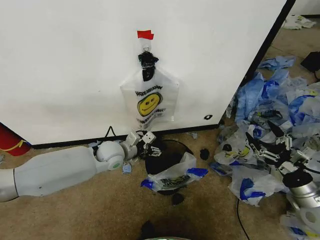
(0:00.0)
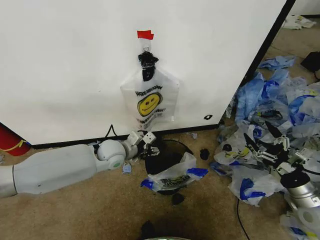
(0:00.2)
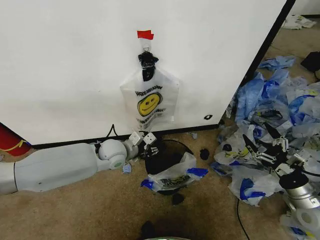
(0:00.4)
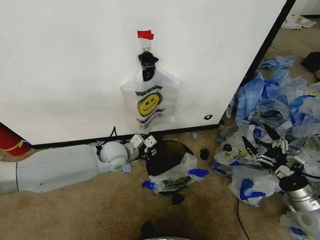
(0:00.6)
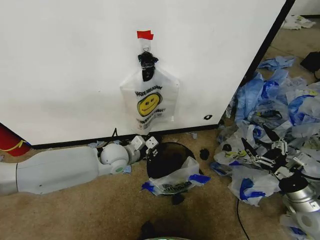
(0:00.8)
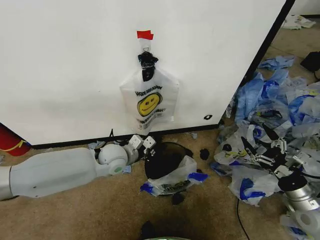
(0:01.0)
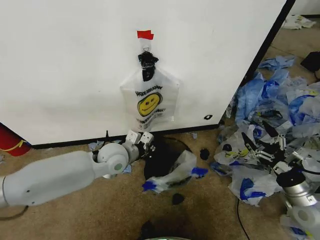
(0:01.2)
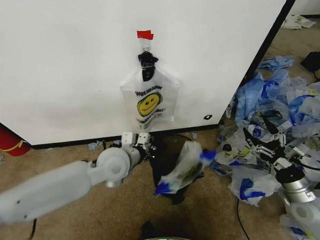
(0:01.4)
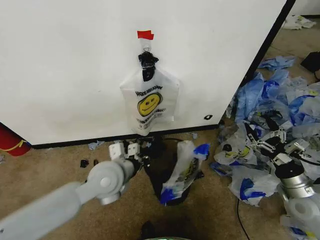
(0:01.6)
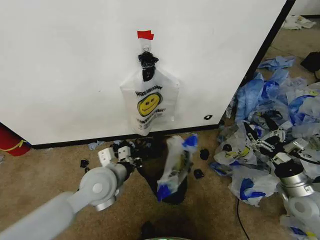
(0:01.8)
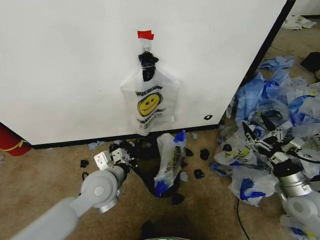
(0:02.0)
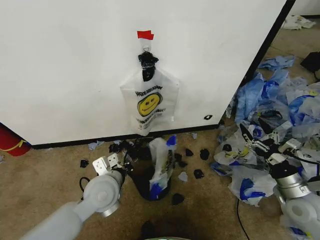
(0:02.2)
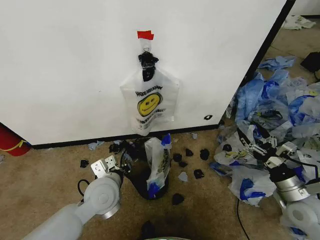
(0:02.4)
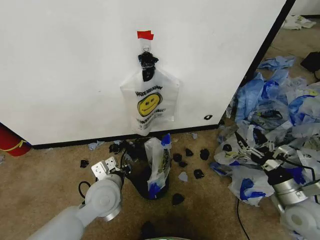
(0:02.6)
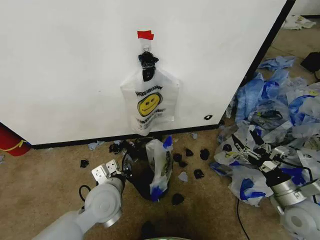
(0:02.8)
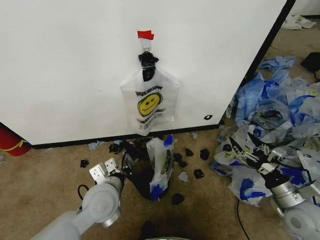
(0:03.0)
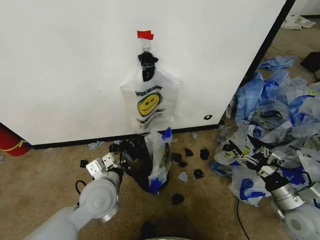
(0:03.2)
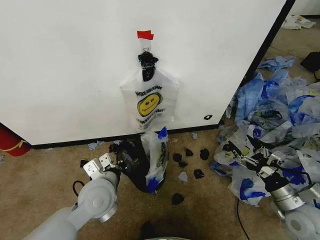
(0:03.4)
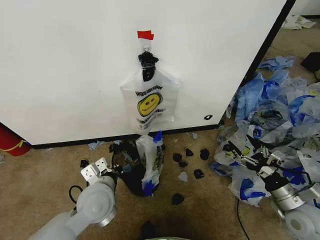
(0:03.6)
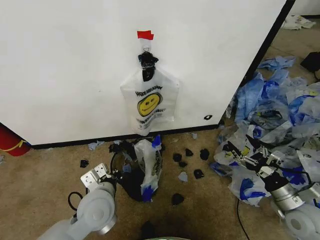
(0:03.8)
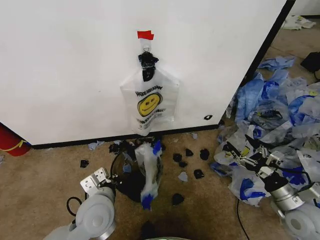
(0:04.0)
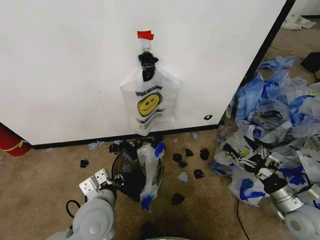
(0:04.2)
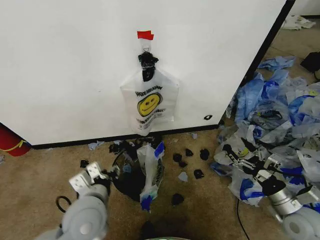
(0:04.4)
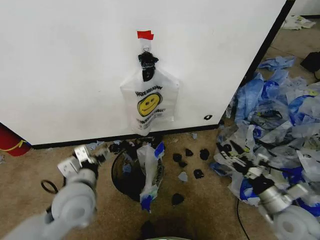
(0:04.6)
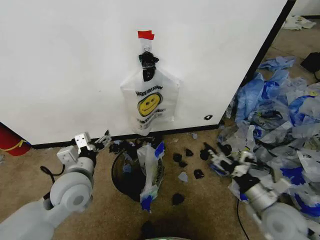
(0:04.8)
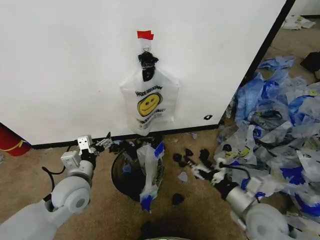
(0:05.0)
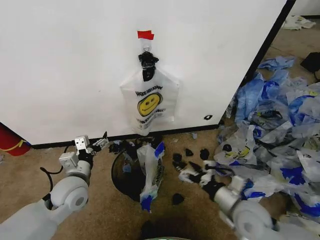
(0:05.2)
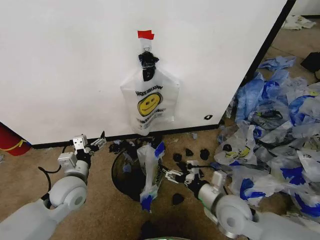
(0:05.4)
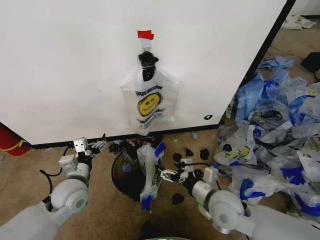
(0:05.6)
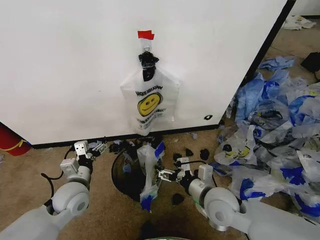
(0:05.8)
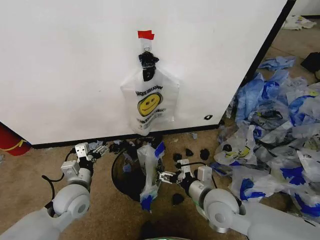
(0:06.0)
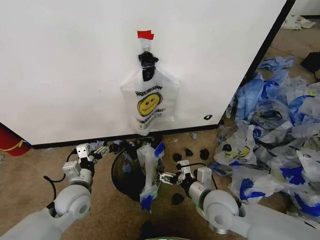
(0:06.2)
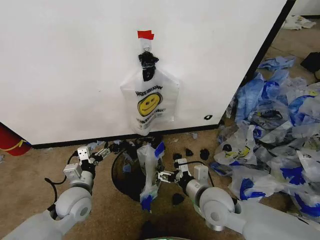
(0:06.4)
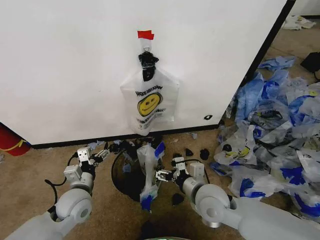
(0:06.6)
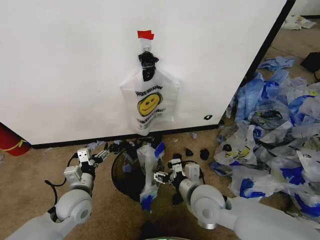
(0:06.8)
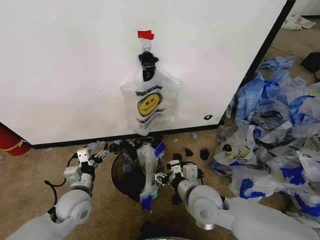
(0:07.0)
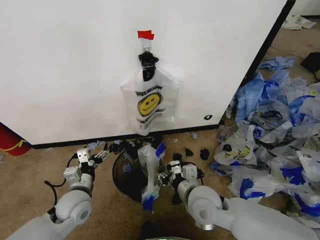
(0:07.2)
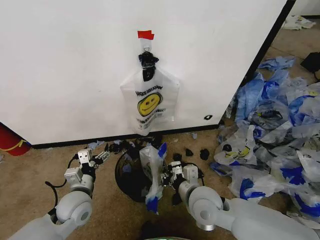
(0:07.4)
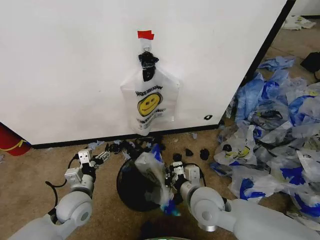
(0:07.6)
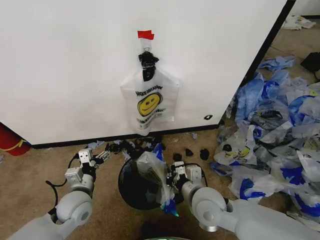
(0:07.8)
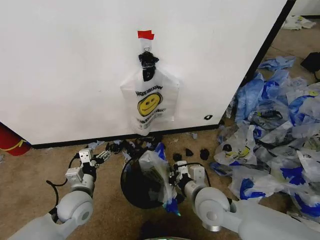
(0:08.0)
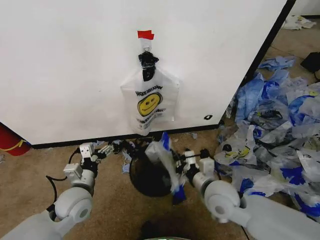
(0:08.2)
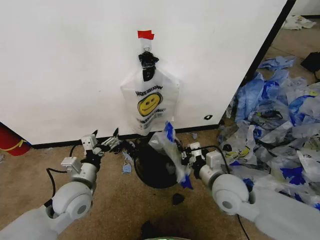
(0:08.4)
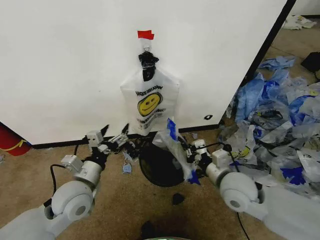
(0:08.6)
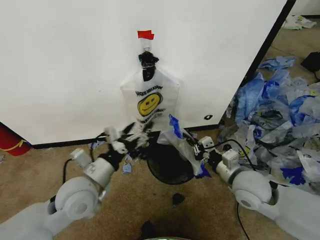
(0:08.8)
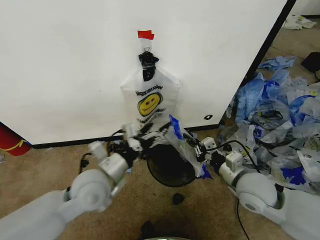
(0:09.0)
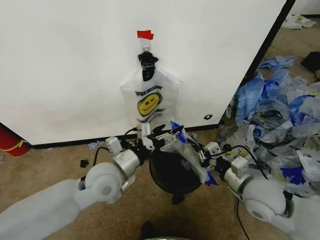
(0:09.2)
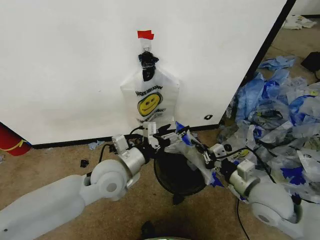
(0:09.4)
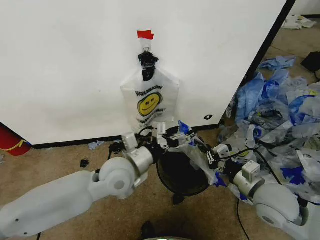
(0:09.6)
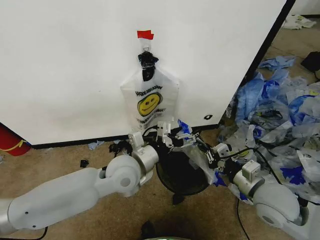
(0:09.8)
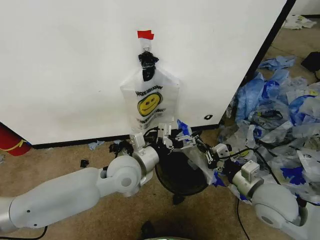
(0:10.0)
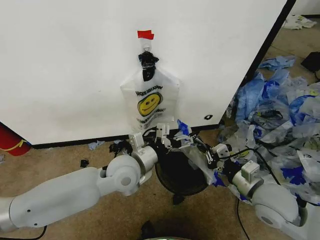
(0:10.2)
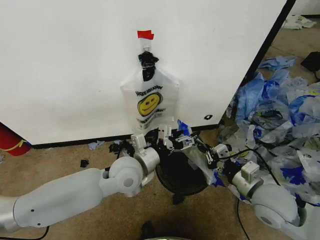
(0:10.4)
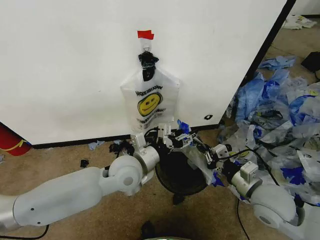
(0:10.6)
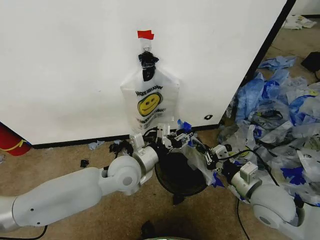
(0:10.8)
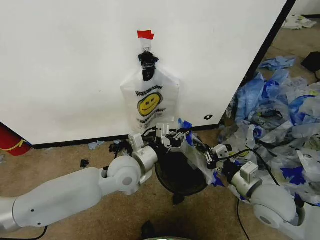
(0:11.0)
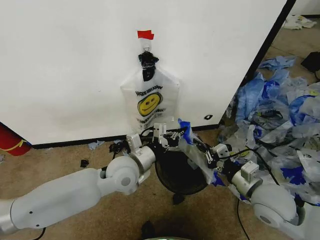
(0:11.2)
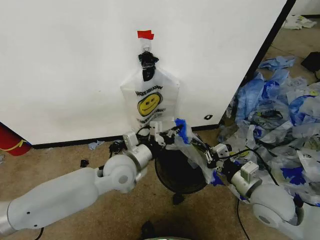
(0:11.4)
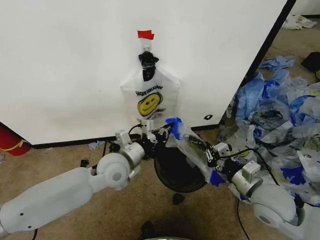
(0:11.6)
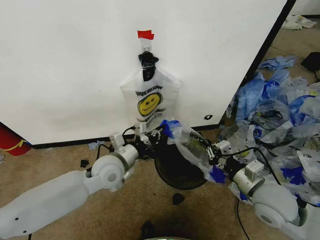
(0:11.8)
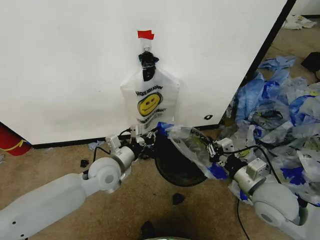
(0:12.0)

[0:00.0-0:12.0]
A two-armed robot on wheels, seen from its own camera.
Task of the whole recording: Pick up the garbage bag from the wall and place it over the trash bin.
0:00.0 to 0:01.6: The left gripper moves backward and upward, some 10 cm, and closes up.
0:01.6 to 0:03.0: The left gripper moves backward and downward, roughly 10 cm.
0:03.0 to 0:04.4: The left gripper ends up roughly 5 cm from where it was, and opens.
0:04.4 to 0:06.0: The left gripper is displaced to the left, downward and forward by roughly 15 cm, and opens its fingers. Meanwhile the right gripper is displaced to the left by about 25 cm.
0:06.0 to 0:07.6: The right gripper closes its fingers.
0:07.6 to 0:09.0: The left gripper goes some 15 cm upward and to the right. The right gripper shifts about 15 cm to the right.
0:09.0 to 0:10.4: The left gripper is displaced to the right by some 10 cm.
0:10.4 to 0:12.0: The left gripper travels to the left by approximately 5 cm, and closes up.

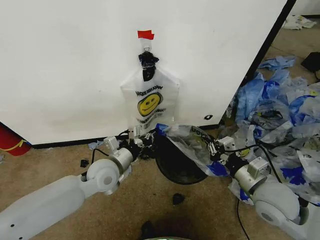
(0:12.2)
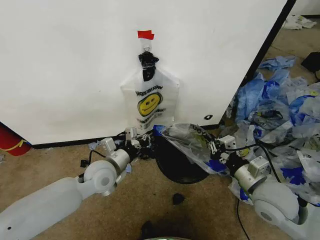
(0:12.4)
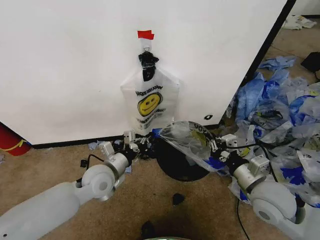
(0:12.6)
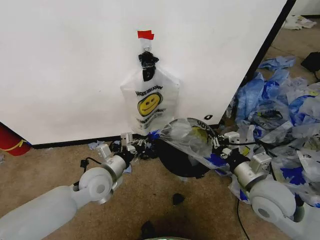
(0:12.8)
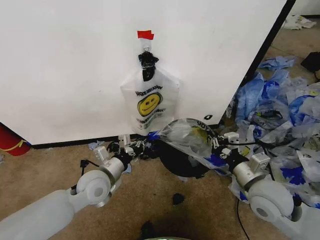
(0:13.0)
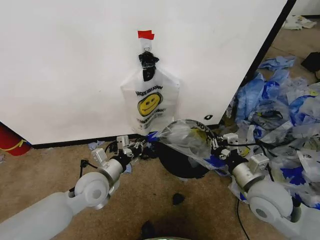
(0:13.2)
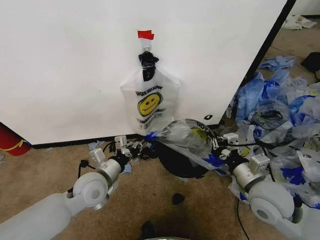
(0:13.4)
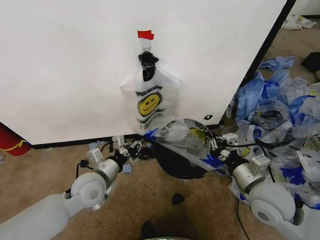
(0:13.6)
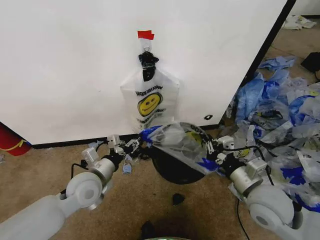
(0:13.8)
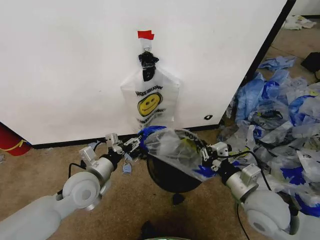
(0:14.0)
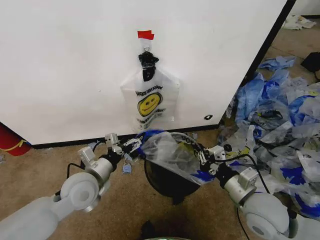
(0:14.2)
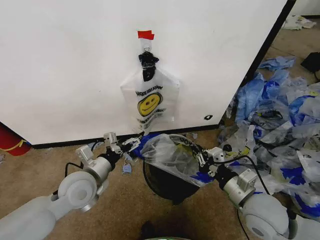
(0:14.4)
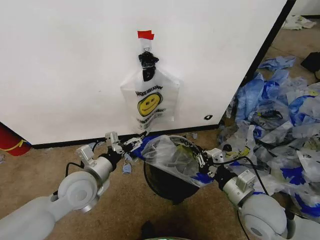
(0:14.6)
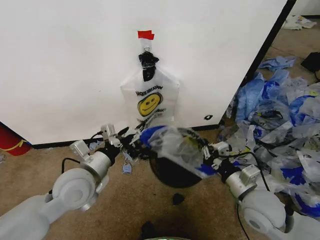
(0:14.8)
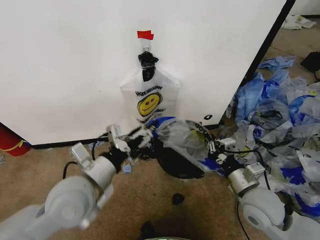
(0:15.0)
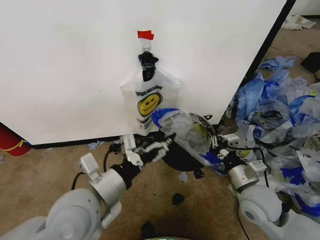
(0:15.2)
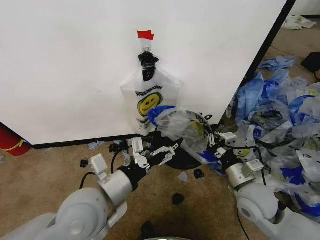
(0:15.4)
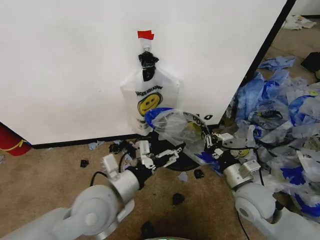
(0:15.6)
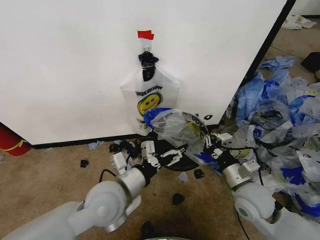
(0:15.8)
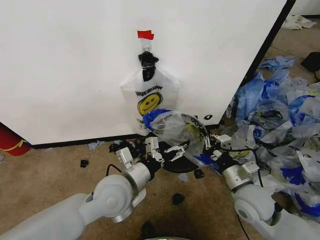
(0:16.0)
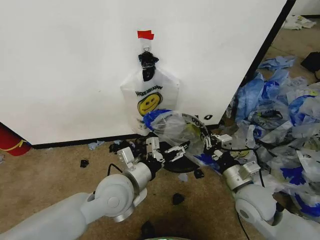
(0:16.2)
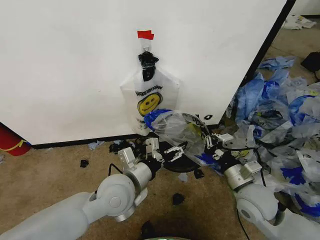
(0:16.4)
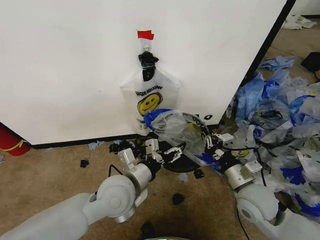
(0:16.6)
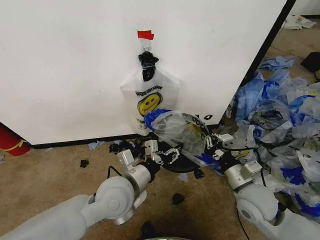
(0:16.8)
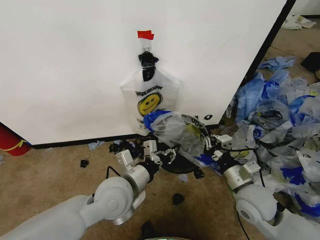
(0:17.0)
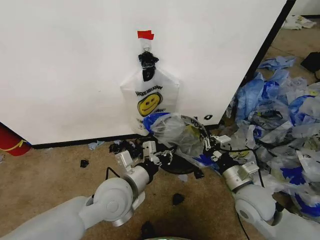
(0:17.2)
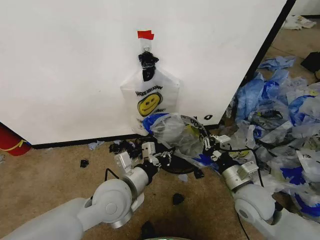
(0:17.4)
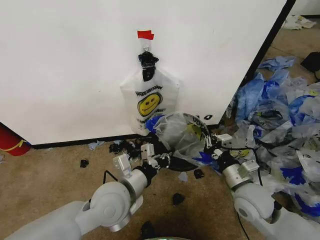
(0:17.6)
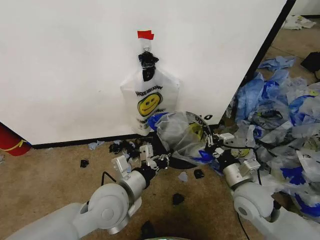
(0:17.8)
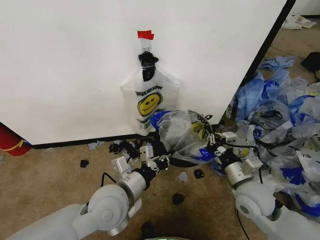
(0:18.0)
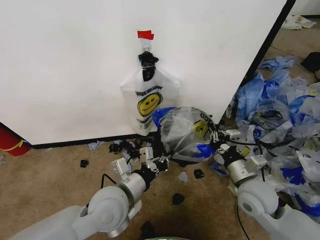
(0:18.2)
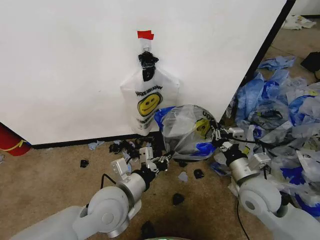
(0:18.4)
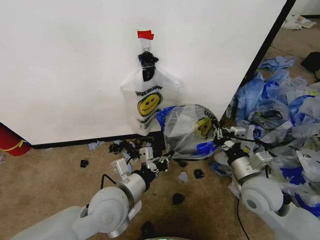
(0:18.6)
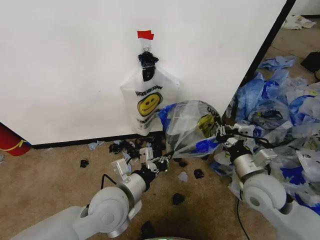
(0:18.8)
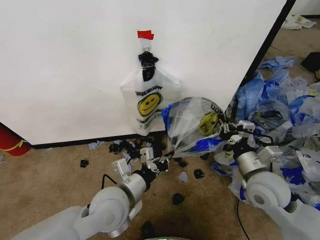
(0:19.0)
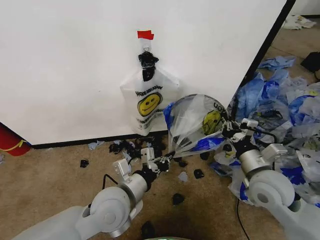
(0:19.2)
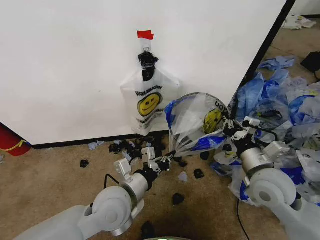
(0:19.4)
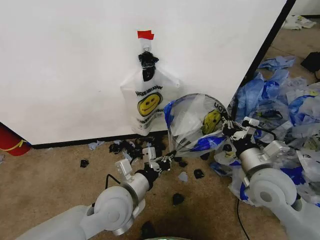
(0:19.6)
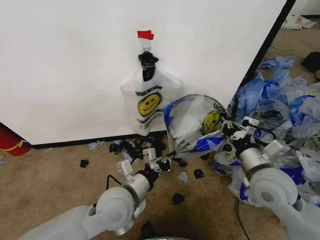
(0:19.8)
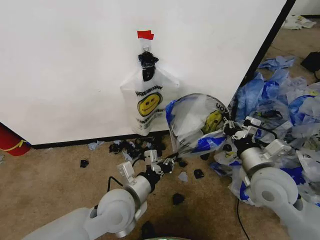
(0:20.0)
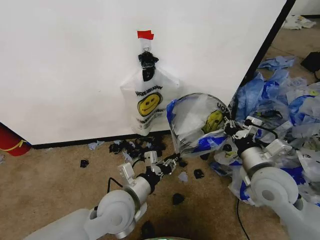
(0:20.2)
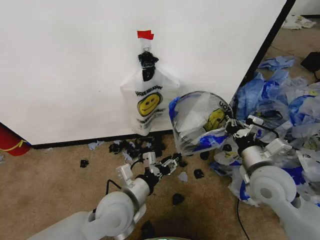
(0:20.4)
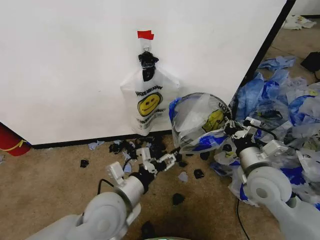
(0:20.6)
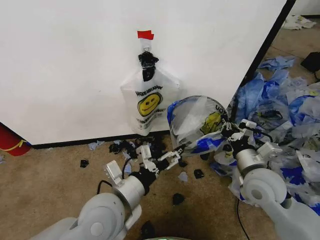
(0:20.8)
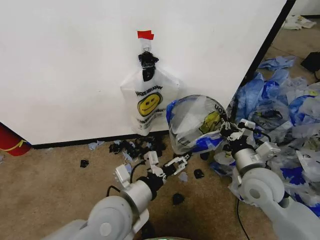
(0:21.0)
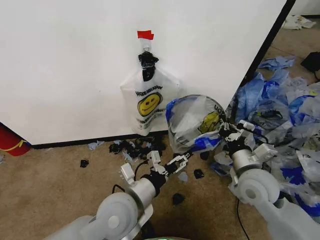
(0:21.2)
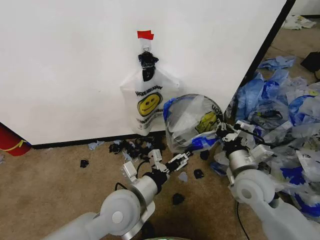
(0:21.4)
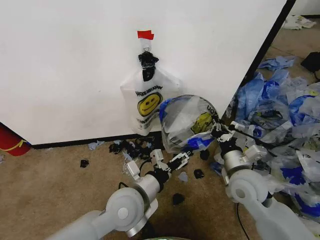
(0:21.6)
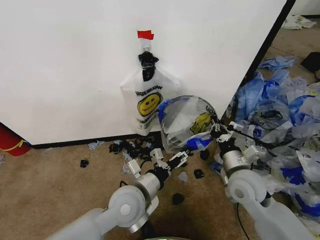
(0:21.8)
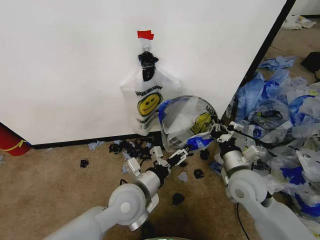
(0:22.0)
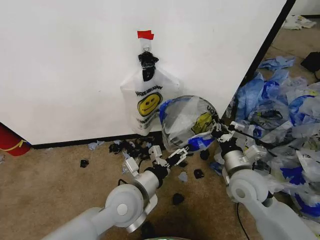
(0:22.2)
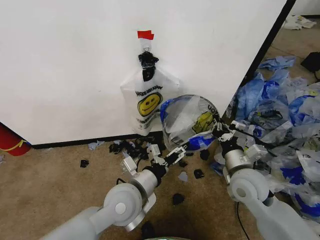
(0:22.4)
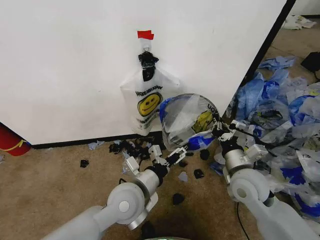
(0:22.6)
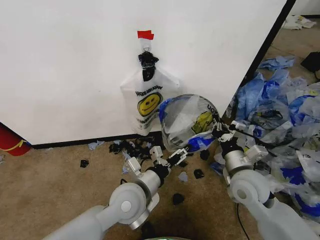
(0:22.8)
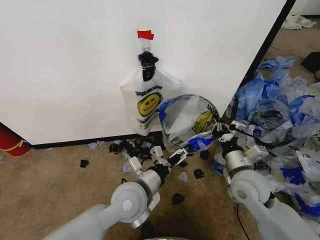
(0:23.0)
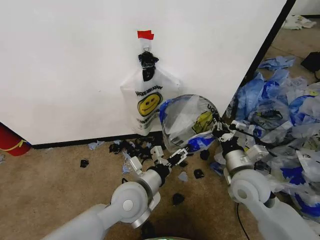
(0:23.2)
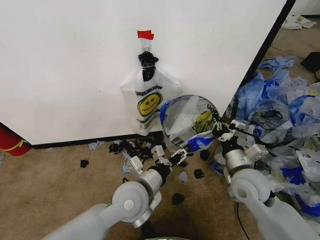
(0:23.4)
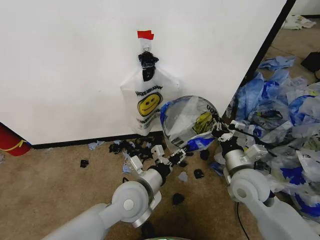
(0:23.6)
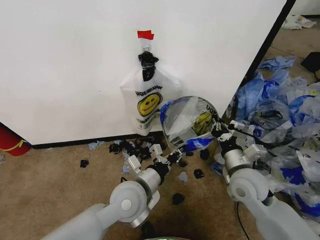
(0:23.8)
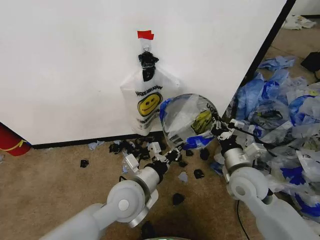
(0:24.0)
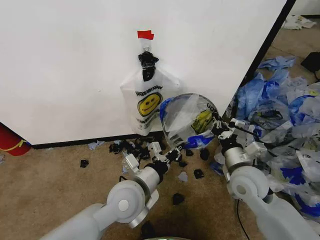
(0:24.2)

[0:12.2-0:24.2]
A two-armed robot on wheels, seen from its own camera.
Task of the whole recording: Pick up the garbage bag from the wall and place it over the trash bin.
0:12.2 to 0:13.8: The left gripper changes place by about 5 cm, and opens up.
0:13.8 to 0:15.2: The left gripper is displaced upward, backward and to the right by about 15 cm, and opens.
0:15.2 to 0:16.6: The left gripper heads forward, downward and to the right, covering roughly 10 cm.
0:16.6 to 0:18.2: The left gripper closes its fingers.
0:18.2 to 0:19.8: The right gripper travels upward by approximately 5 cm.
0:19.8 to 0:21.2: The left gripper opens its fingers.
0:21.2 to 0:22.6: The grippers stay close to where they were, moving slightly.
0:22.6 to 0:24.2: The left gripper closes.
